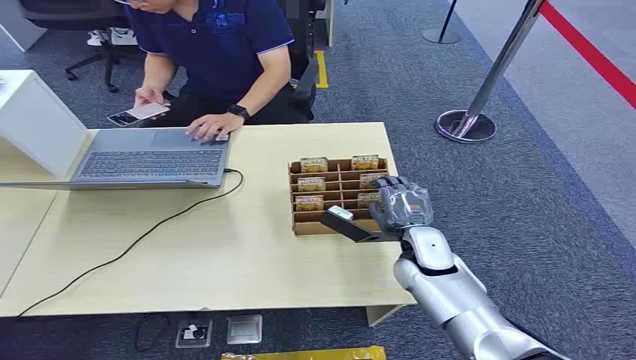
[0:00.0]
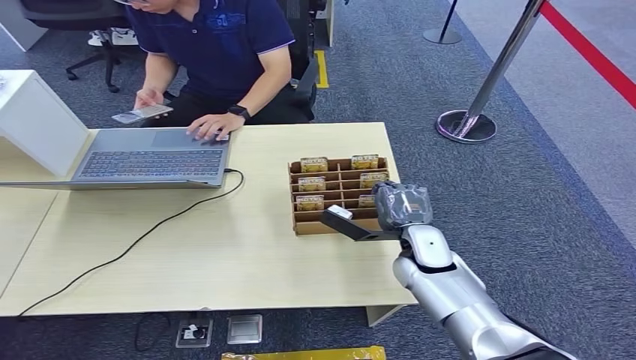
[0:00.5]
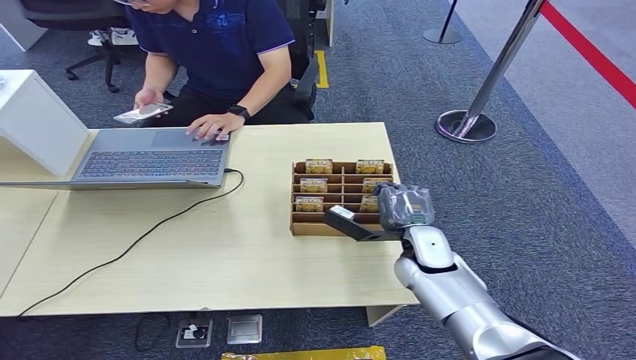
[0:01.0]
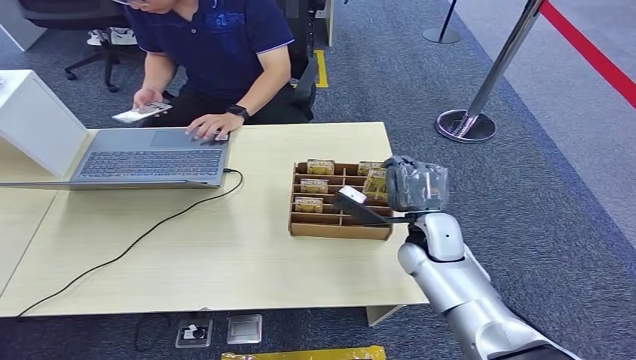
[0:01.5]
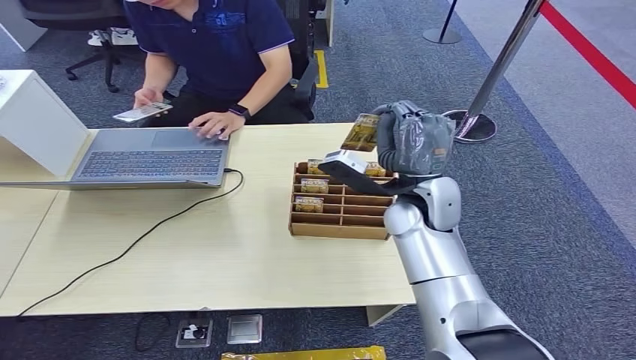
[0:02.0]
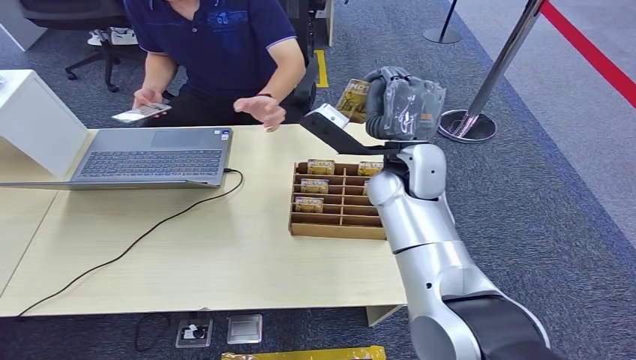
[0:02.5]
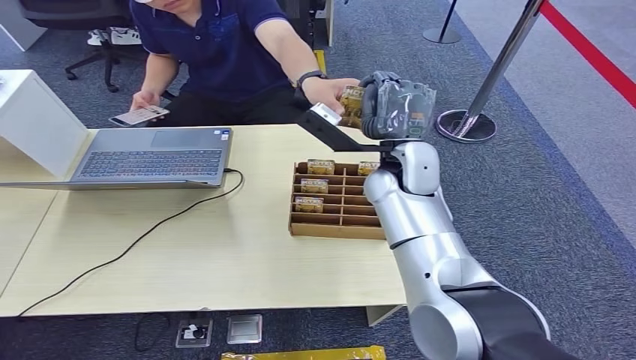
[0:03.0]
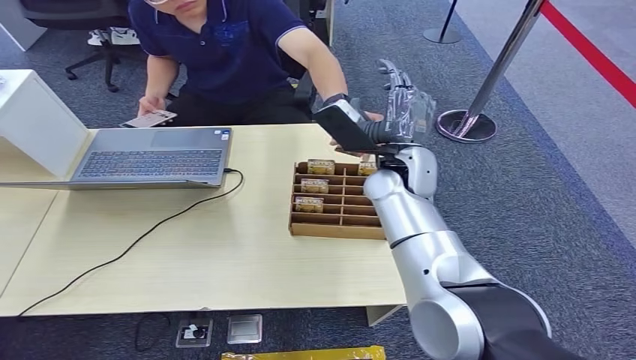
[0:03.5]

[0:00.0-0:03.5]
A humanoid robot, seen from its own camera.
Task of the whole recording: Pick up the card and hand it over to the target person.
Step, 0:00.0 to 0:01.5: Pick up the key card from the card box.
Step, 0:02.0 to 0:03.5: Hand the key card to the target.
0:02.0 to 0:03.5: The hands stay close to where they were, moving slightly.

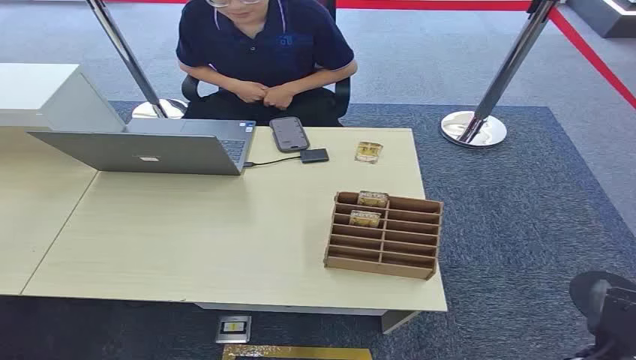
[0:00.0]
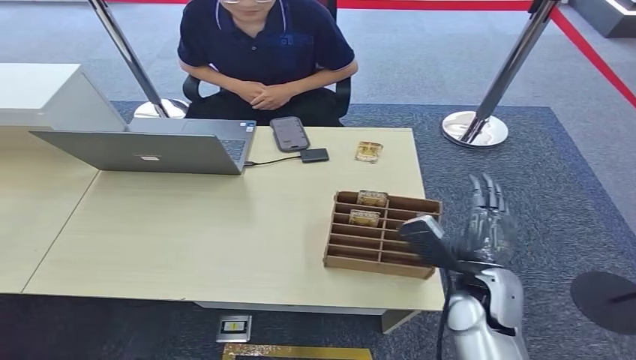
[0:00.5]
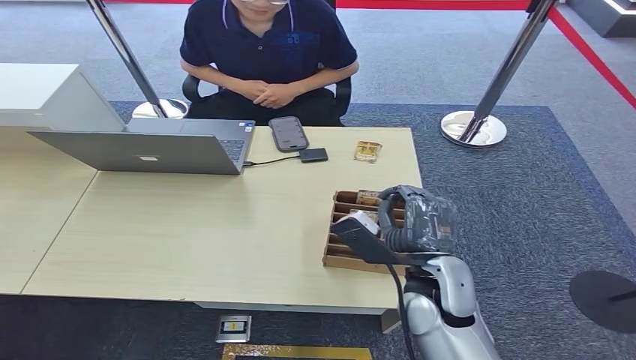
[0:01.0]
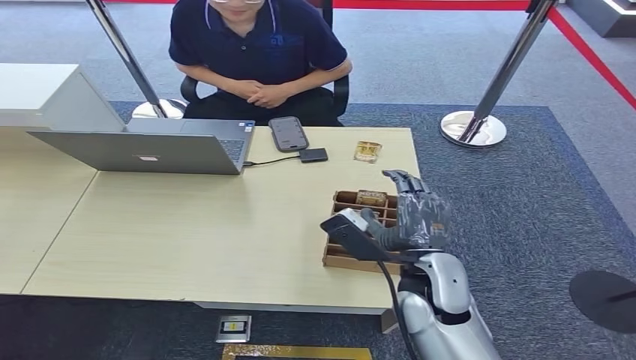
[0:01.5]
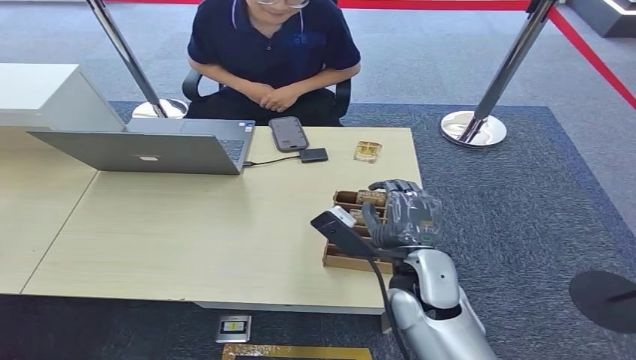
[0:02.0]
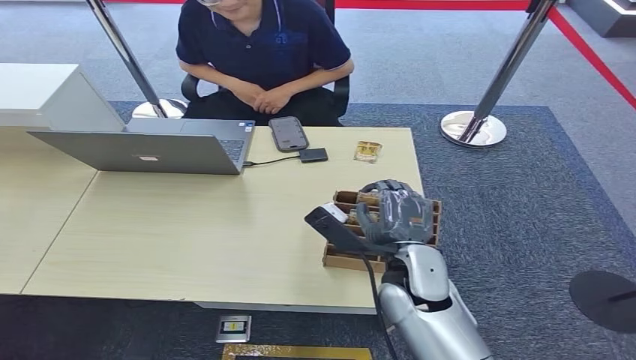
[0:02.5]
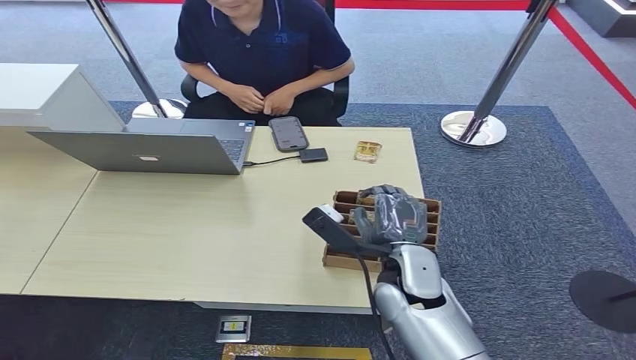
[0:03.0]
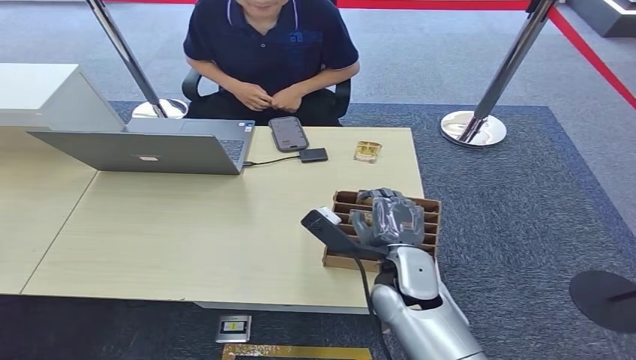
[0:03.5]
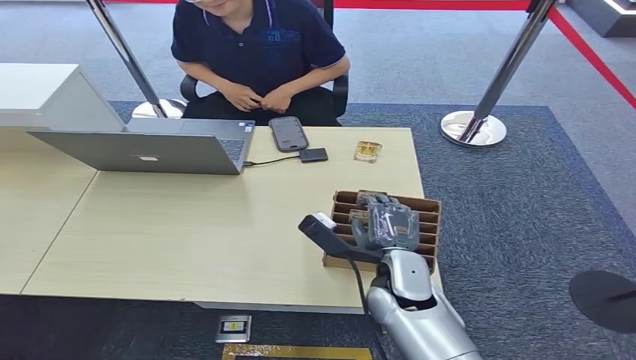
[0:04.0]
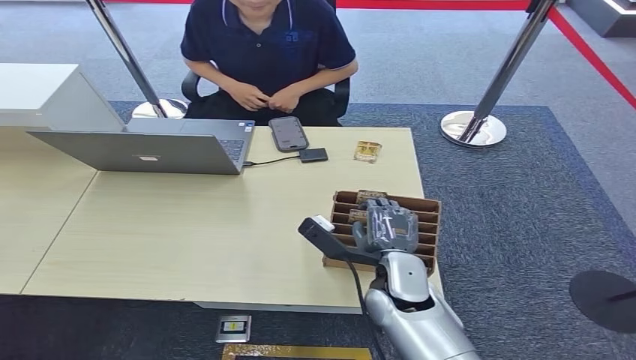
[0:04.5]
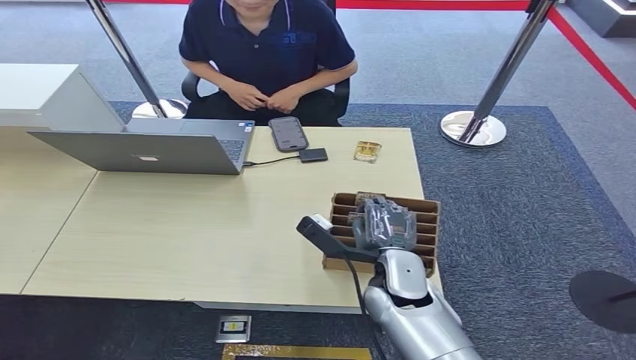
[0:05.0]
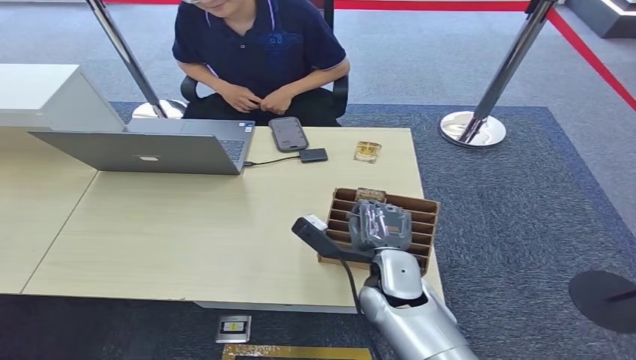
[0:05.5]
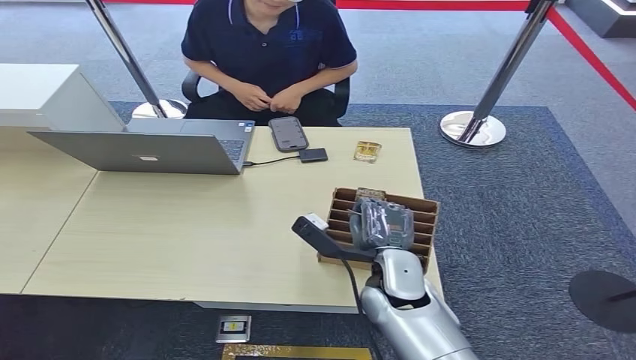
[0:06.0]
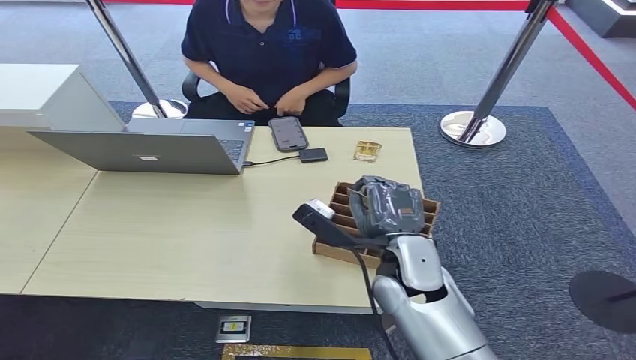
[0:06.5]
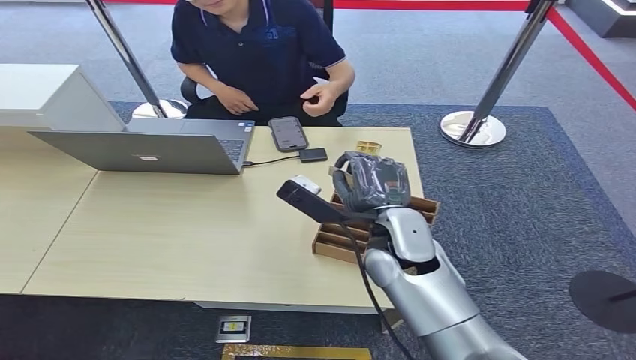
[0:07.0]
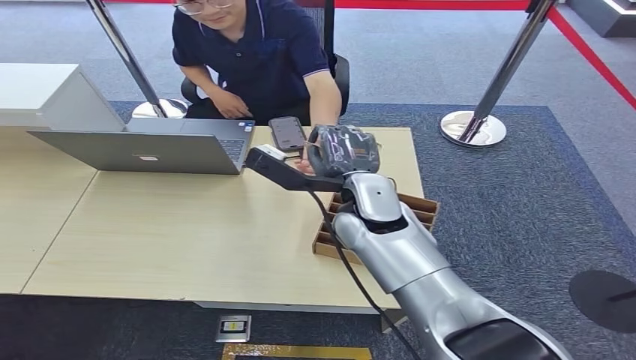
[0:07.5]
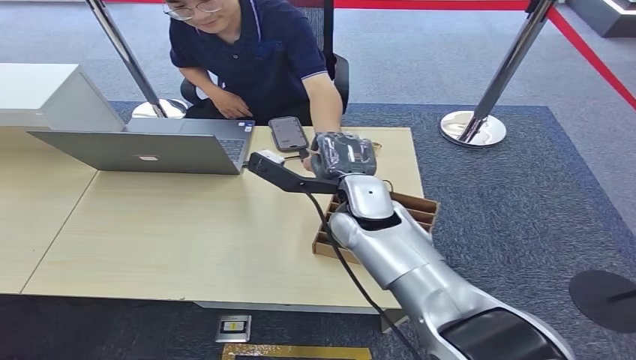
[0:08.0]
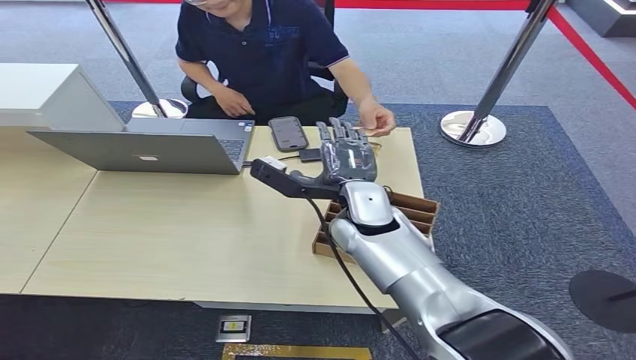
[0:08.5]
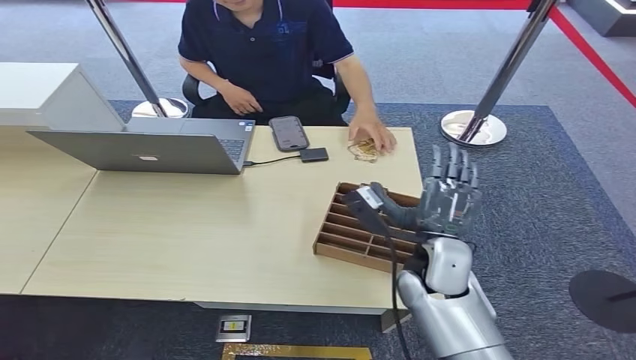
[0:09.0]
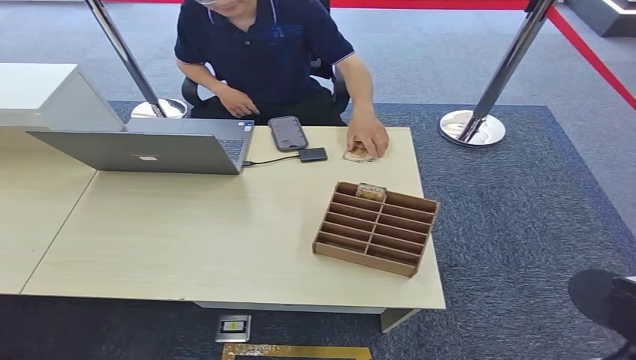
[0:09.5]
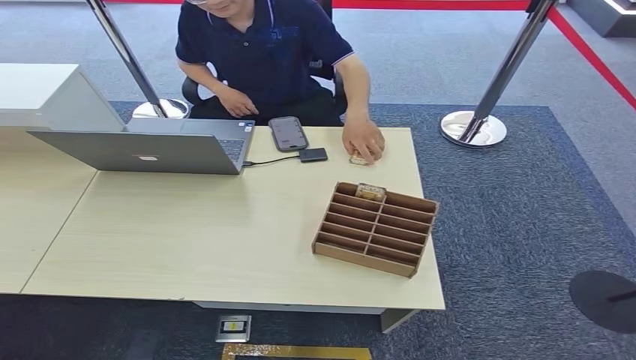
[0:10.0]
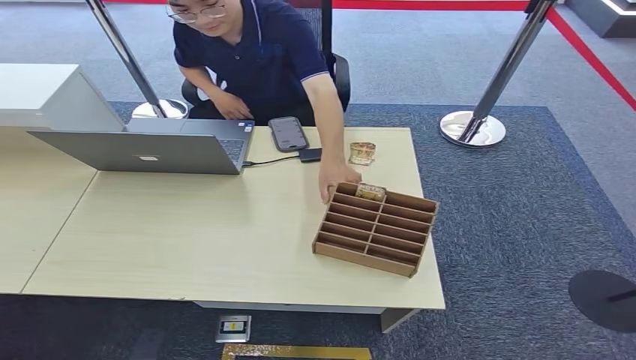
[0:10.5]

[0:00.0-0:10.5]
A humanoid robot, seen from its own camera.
Task of the whole recording: Pick up the card and hand it over to the target person.
Step, 0:00.0 to 0:06.5: Pick up the key card from the card box.
Step, 0:07.0 to 0:10.5: Hand the key card to the target.
0:02.0 to 0:04.0: There are only small adjustments of the hands.
0:04.0 to 0:06.5: The right hand travels upward by about 5 cm.
0:06.5 to 0:08.5: The right hand heads forward, covering approximately 5 cm.
0:08.5 to 0:10.5: The right hand is displaced backward, downward and to the right by about 50 cm.
